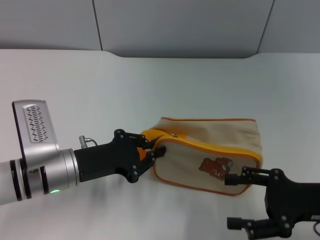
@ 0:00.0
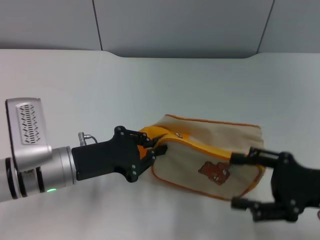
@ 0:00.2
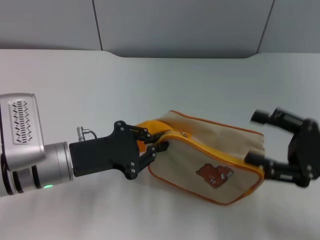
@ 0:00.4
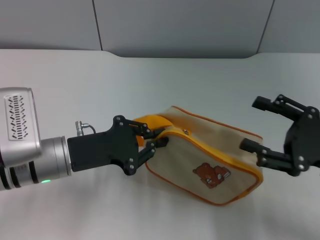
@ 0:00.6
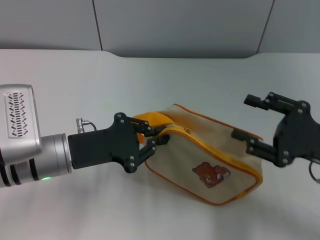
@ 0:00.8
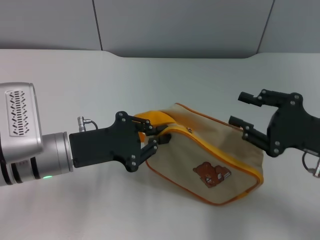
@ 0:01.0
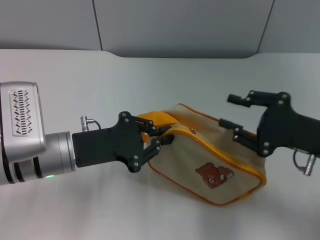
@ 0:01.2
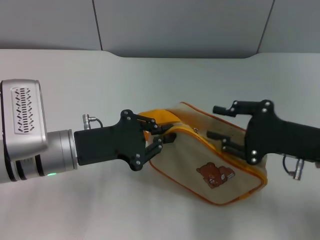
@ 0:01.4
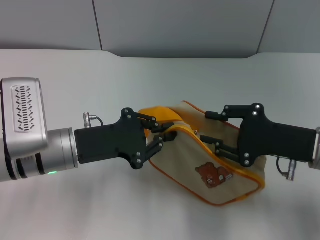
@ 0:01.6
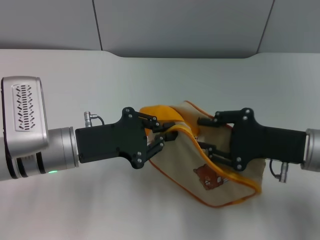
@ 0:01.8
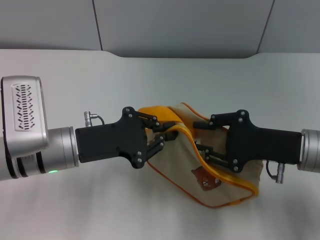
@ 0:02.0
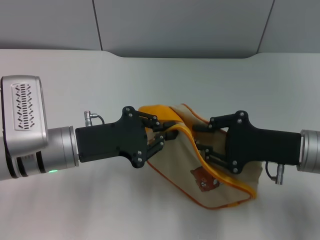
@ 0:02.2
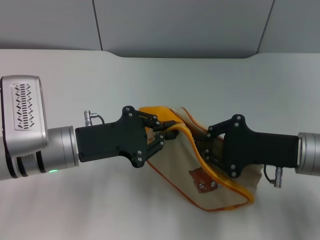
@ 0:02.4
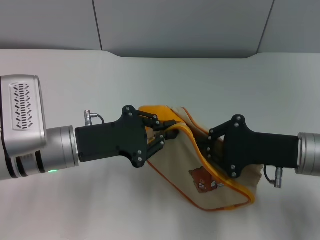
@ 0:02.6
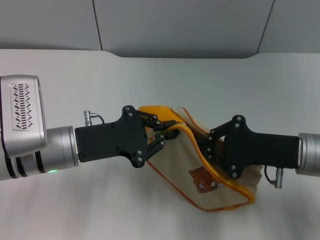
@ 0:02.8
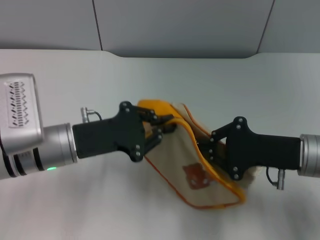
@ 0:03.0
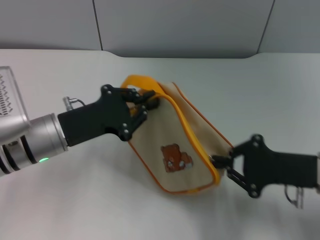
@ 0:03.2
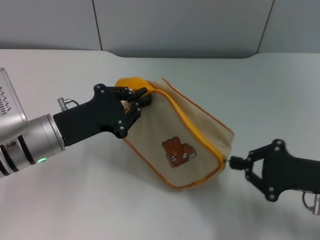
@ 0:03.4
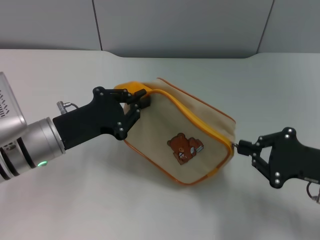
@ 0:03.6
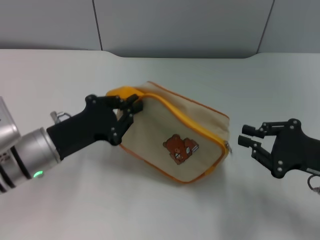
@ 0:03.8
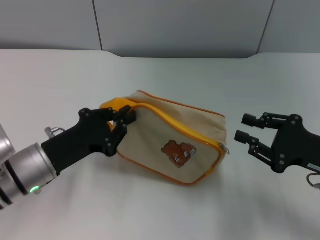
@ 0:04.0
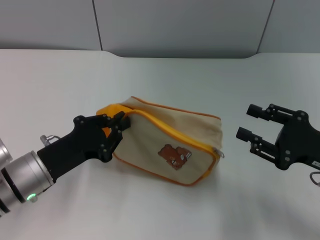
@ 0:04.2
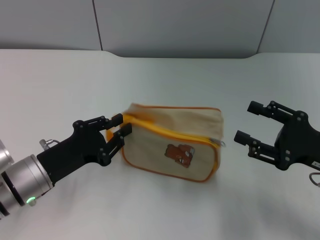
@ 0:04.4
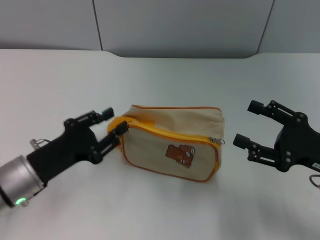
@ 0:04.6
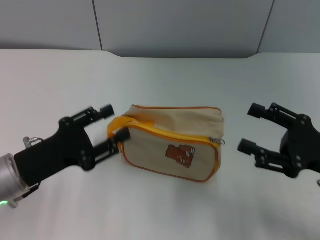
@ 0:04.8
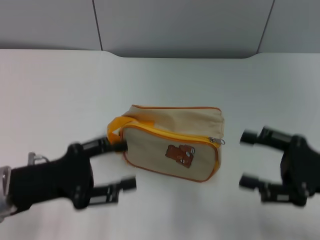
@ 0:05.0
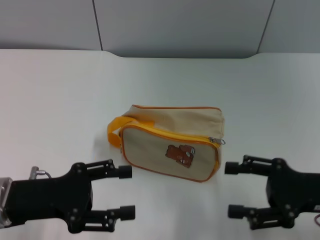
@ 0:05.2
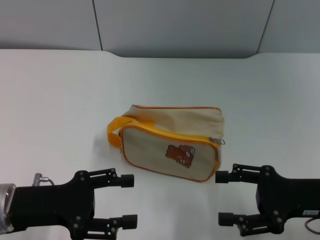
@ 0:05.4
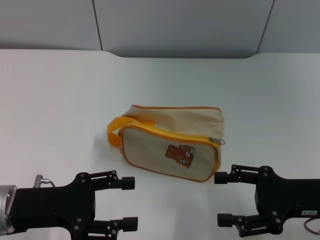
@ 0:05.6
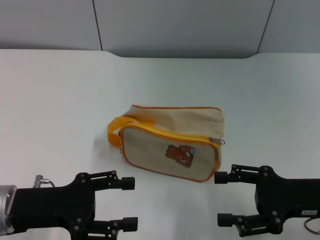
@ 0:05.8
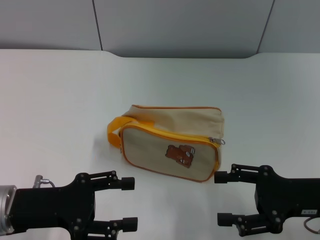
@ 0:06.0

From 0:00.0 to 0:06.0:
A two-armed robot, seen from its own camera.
Step, from 0:01.0 to 0:03.8: Unzip the zipper of bag with right gripper.
Step, from 0:04.0 to 0:04.8: Place the bag on the table with left gripper.
From 0:00.0 to 0:01.6: The right gripper goes about 5 cm forward, and closes its fingers.
From 0:01.6 to 0:03.0: The right gripper closes its fingers.
From 0:03.0 to 0:04.4: The left gripper shifts by some 10 cm, while the right gripper heads to the right, covering roughly 5 cm, and opens its fingers.
From 0:04.4 to 0:06.0: The right gripper opens its fingers. The left gripper changes place by approximately 5 cm, and opens.

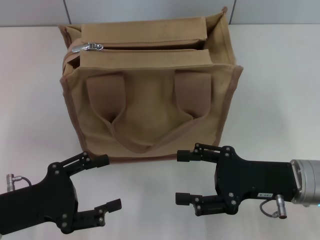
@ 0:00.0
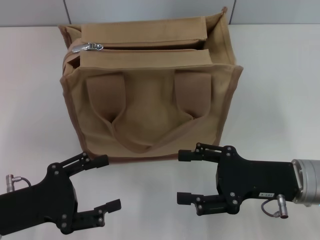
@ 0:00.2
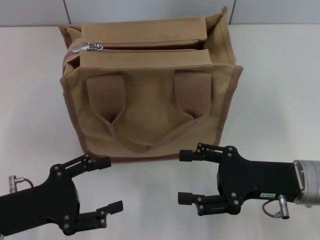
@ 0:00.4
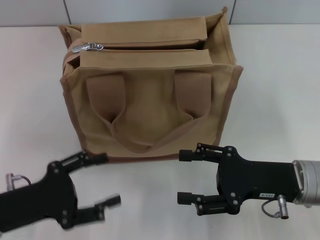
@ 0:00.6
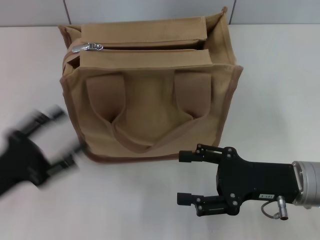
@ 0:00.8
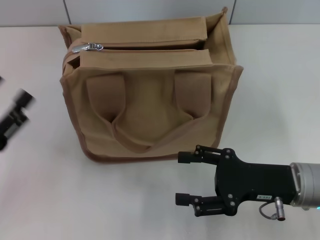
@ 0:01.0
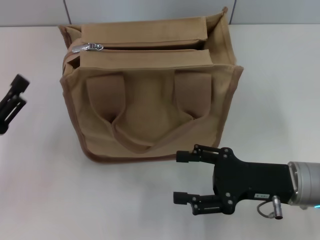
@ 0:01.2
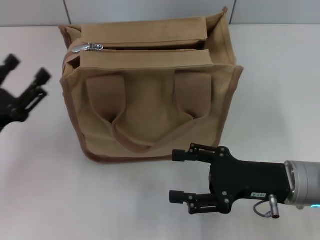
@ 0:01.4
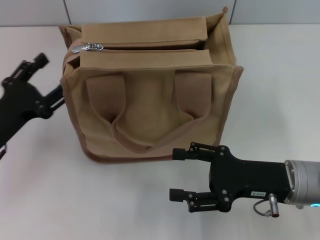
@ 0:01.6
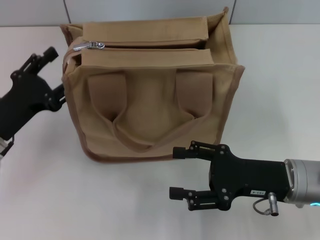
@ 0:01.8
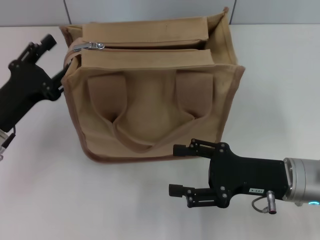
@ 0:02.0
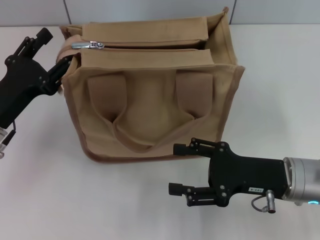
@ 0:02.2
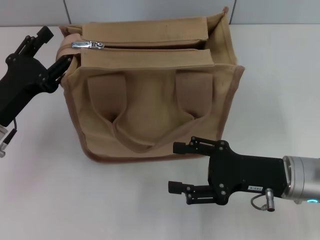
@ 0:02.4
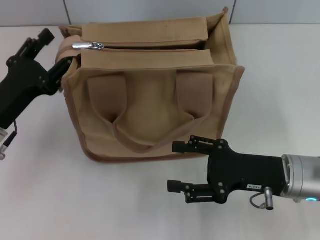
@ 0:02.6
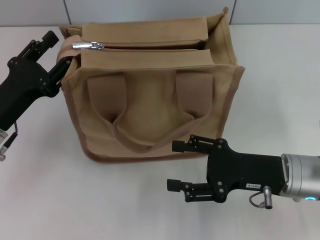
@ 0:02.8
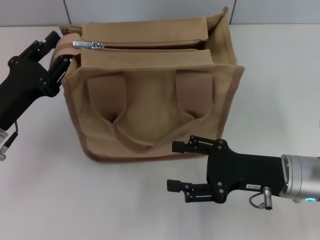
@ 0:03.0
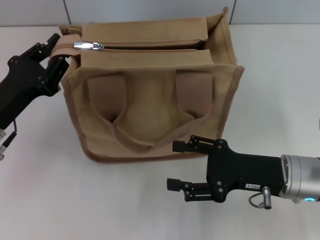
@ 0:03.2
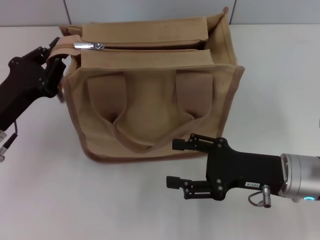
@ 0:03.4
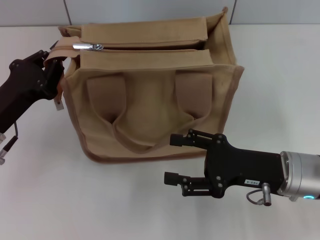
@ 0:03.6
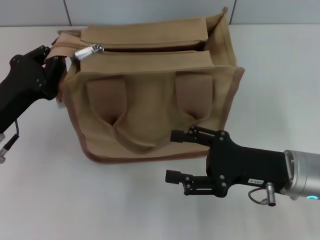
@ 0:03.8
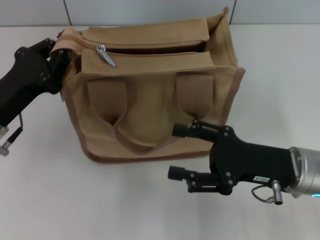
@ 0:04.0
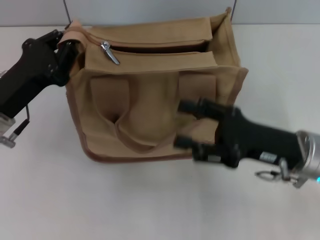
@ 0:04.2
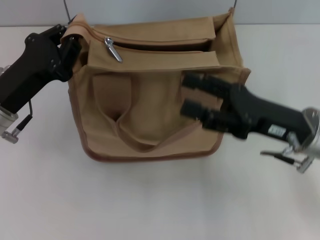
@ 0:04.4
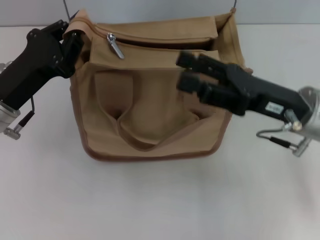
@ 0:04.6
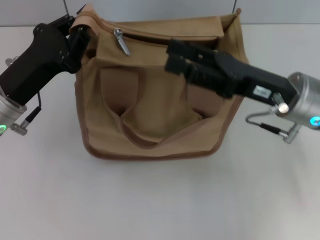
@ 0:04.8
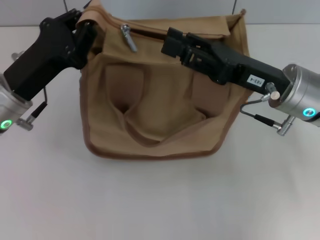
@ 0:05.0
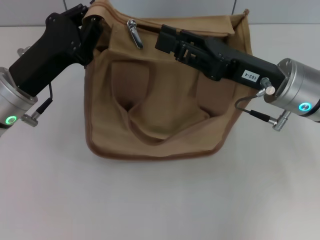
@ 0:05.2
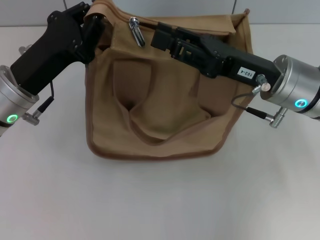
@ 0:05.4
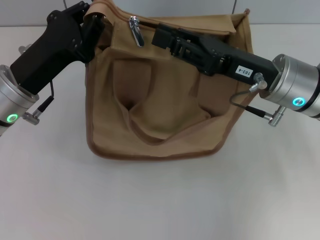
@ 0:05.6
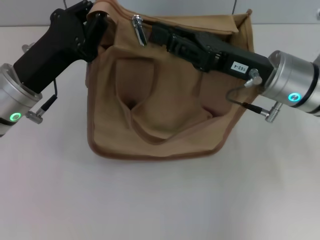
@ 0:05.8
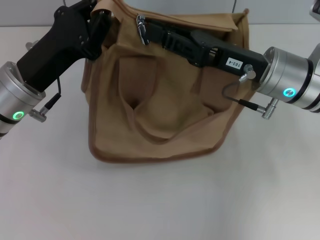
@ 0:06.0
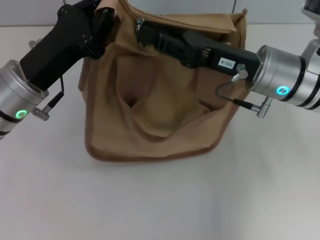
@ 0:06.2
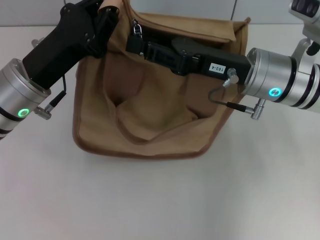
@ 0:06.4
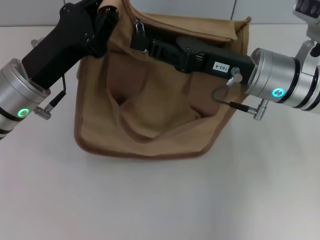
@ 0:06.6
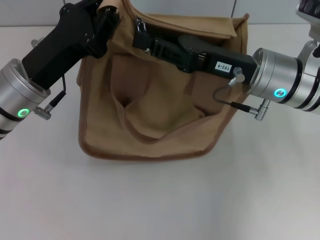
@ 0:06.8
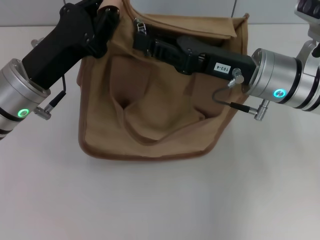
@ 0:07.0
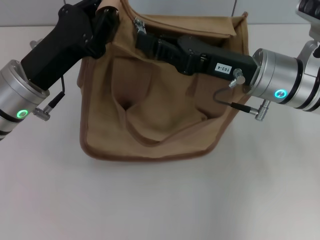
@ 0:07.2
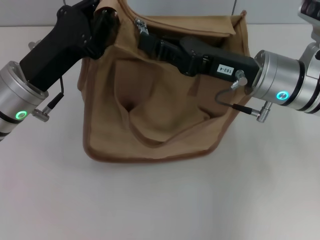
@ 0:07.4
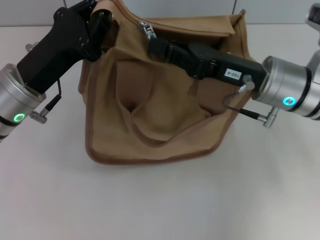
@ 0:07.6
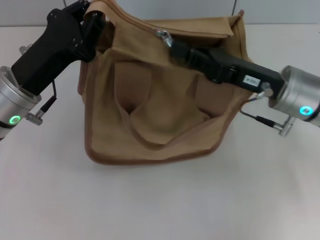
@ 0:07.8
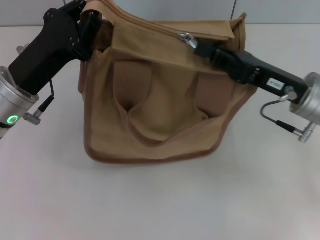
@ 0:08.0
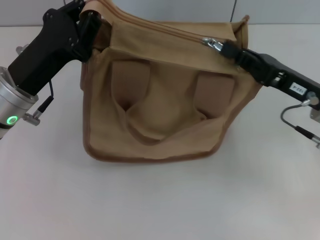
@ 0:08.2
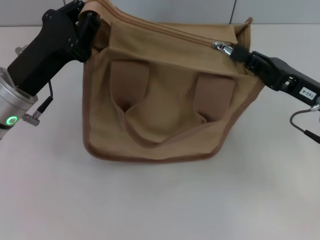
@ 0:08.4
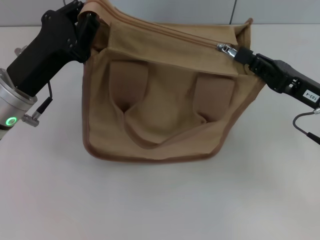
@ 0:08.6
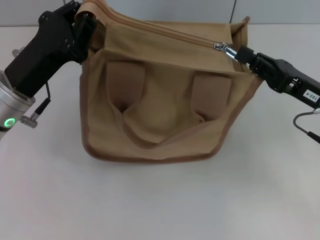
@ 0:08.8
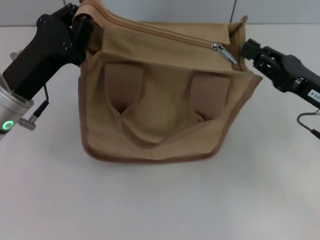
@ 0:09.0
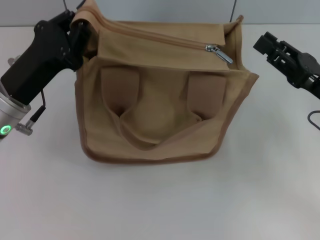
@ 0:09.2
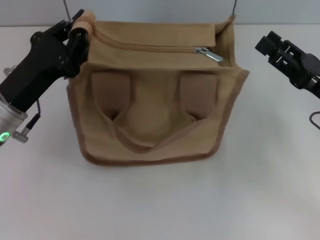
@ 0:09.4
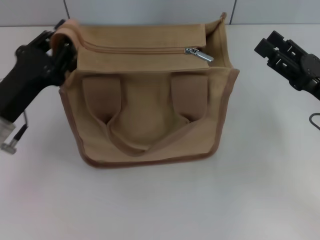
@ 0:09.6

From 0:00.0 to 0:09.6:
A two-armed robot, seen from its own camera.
Step, from 0:00.0 to 0:08.8: Pull up the zipper with your right hand.
From 0:00.0 to 0:01.6: The left gripper heads forward, covering roughly 5 cm.
From 0:01.6 to 0:03.2: The left gripper closes up.
From 0:03.2 to 0:04.8: The left gripper shifts by approximately 5 cm, and closes. The right gripper travels upward and forward by about 10 cm.
From 0:04.8 to 0:06.4: The right gripper shifts by roughly 5 cm, and closes its fingers.
From 0:06.4 to 0:08.0: The right gripper heads to the right, covering approximately 5 cm.
From 0:08.0 to 0:09.6: The left gripper changes place by about 5 cm. The right gripper moves to the right, approximately 5 cm, and opens its fingers.

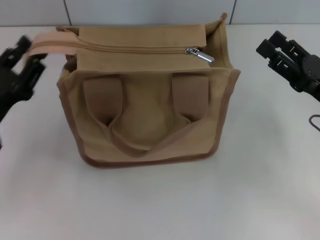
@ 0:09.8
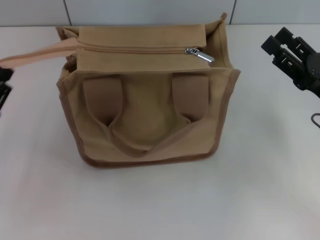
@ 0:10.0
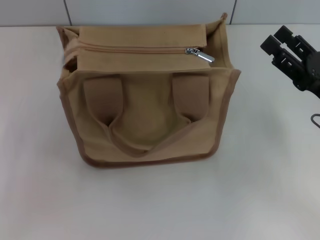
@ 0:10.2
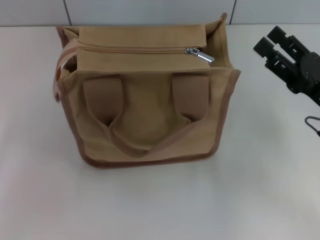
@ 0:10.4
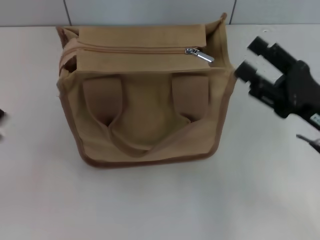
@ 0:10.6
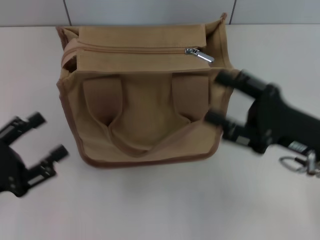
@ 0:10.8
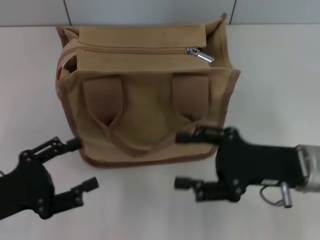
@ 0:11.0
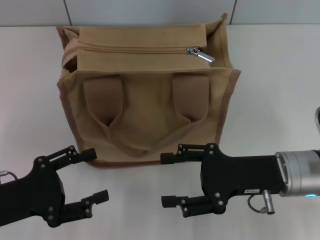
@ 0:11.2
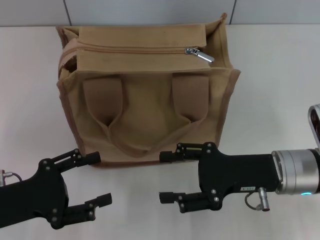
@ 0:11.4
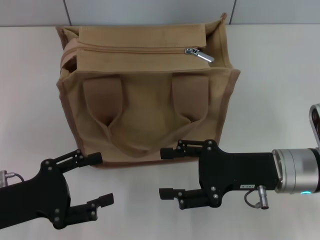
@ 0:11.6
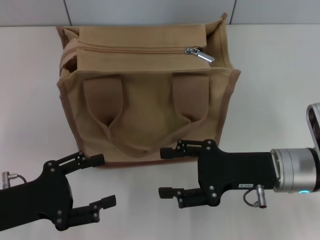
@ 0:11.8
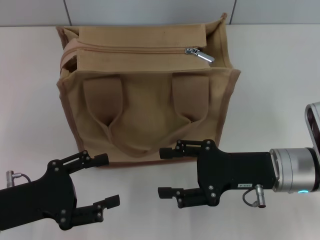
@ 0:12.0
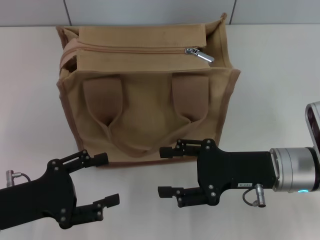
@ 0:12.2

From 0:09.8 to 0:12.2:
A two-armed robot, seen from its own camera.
From 0:09.8 to 0:11.0: The left gripper heads backward, covering approximately 5 cm, and opens up. Meanwhile the right gripper moves to the left, roughly 5 cm.
From 0:11.0 to 0:12.2: The grippers move only a little.
